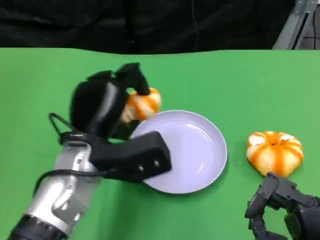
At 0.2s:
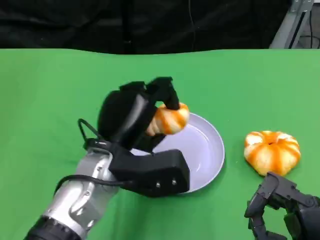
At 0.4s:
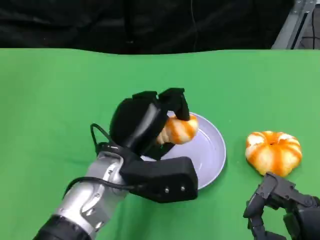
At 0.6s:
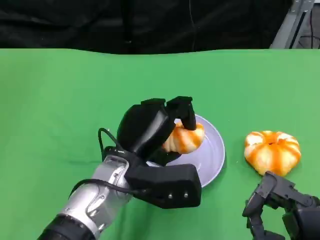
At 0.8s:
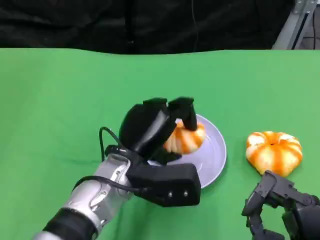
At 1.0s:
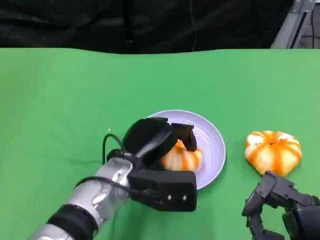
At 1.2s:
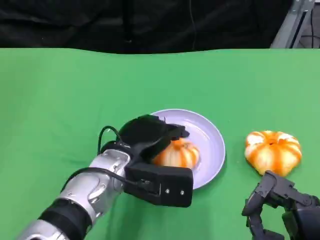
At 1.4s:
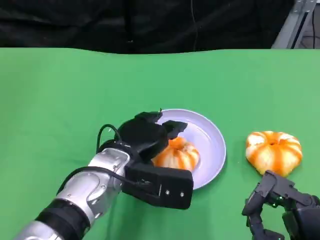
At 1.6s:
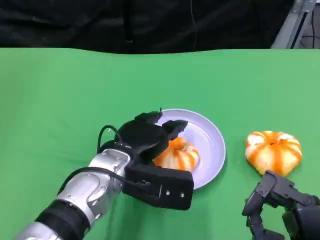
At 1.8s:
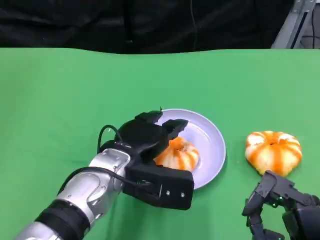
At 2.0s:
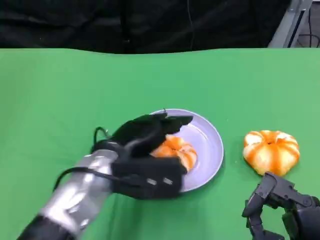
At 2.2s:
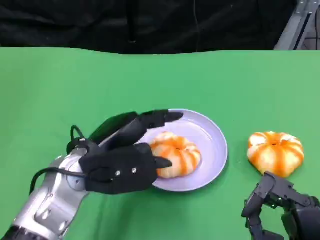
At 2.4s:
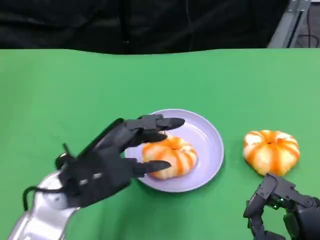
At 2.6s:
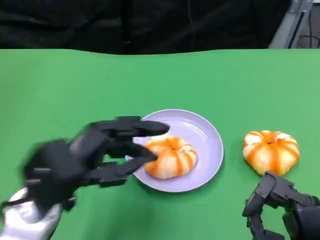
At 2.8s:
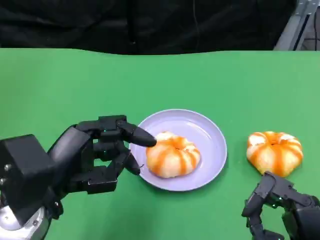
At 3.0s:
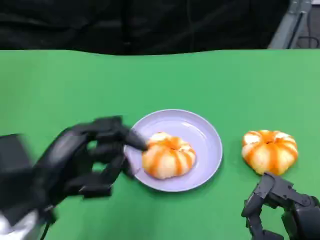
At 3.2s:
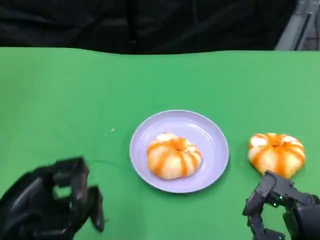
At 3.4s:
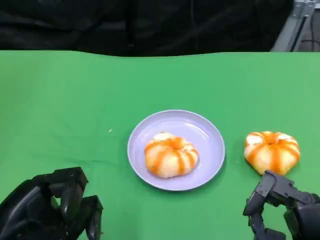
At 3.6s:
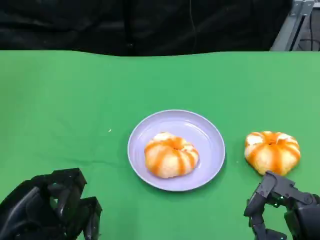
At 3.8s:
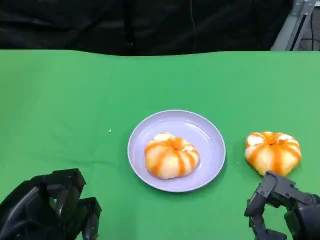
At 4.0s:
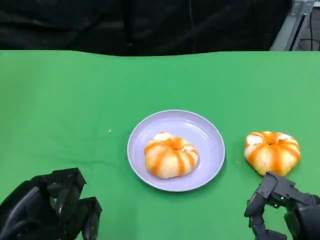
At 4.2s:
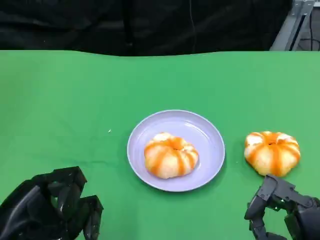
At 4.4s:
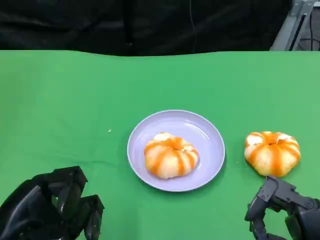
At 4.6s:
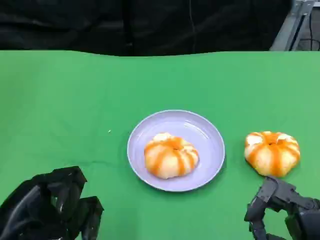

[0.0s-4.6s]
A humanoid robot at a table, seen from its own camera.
Task of the whole recording: Grasp the bread from the table and place it into the plate.
1.6s to 3.0s: The left hand goes roughly 15 cm to the left and backward.
3.0s to 4.6s: The left hand moves approximately 5 cm.

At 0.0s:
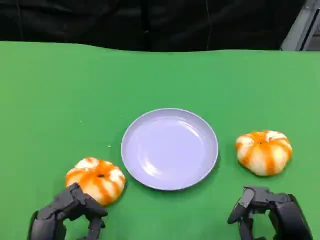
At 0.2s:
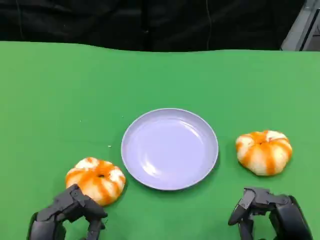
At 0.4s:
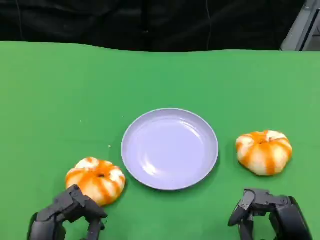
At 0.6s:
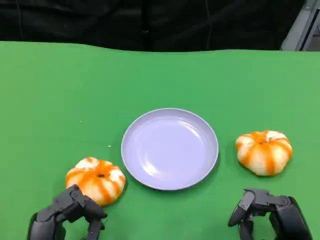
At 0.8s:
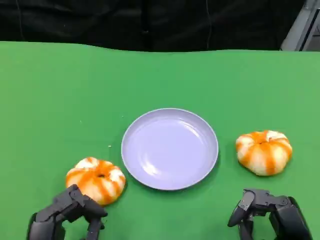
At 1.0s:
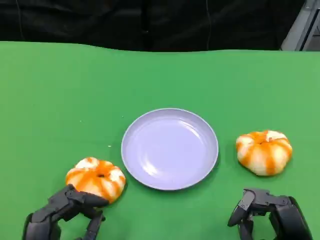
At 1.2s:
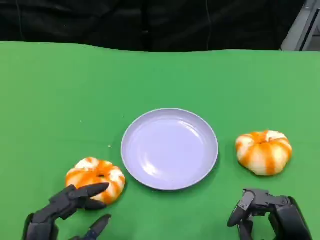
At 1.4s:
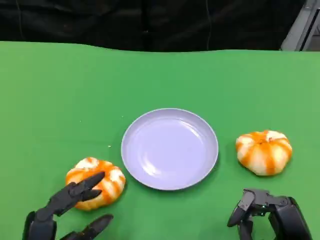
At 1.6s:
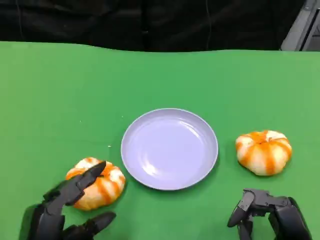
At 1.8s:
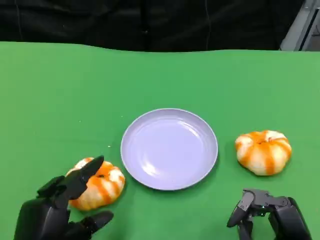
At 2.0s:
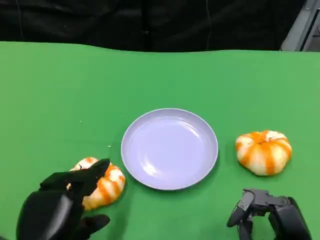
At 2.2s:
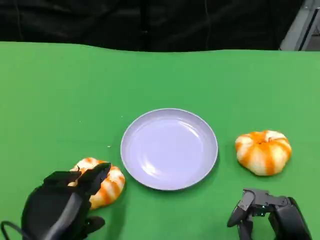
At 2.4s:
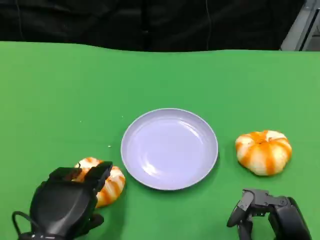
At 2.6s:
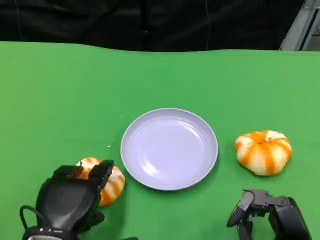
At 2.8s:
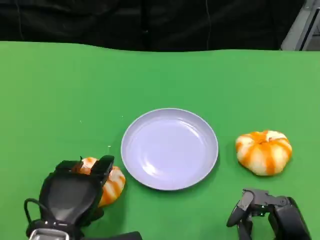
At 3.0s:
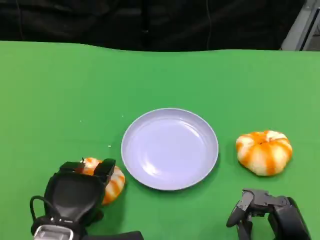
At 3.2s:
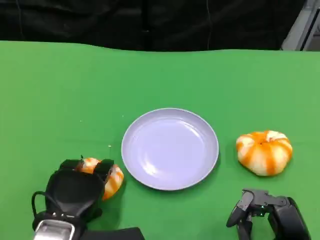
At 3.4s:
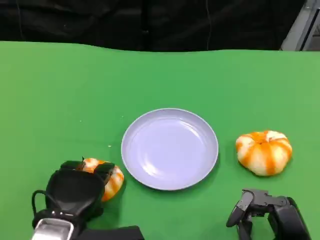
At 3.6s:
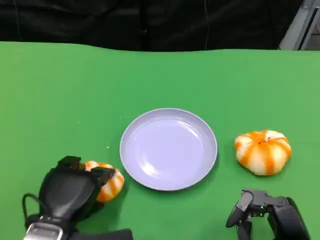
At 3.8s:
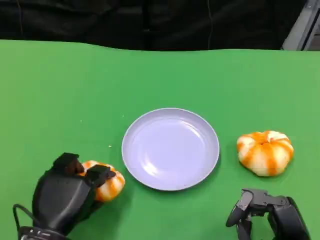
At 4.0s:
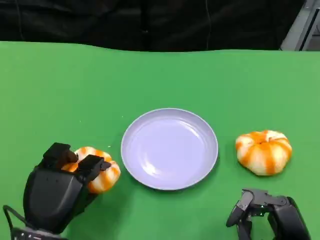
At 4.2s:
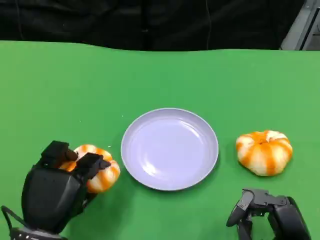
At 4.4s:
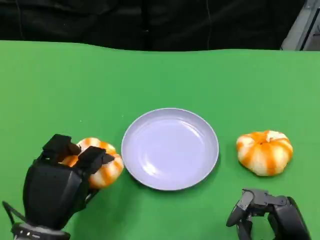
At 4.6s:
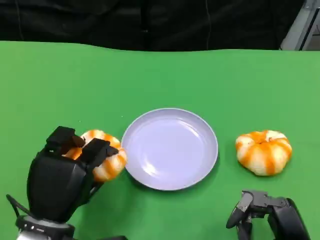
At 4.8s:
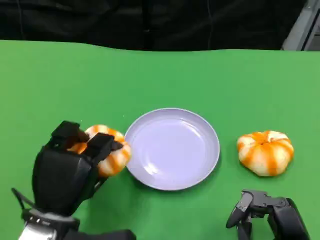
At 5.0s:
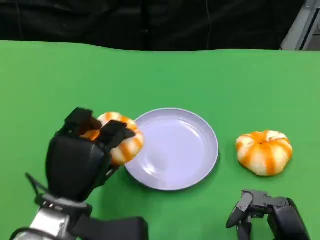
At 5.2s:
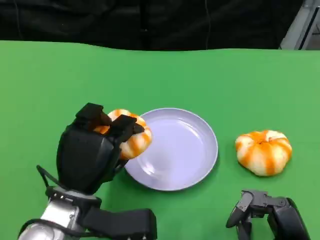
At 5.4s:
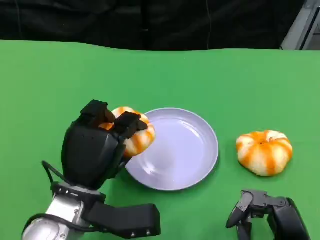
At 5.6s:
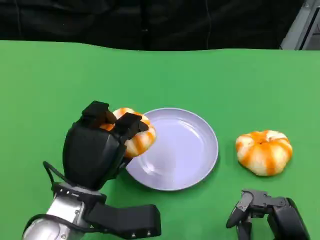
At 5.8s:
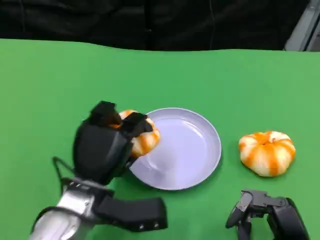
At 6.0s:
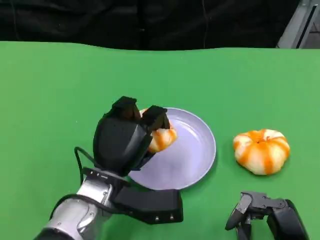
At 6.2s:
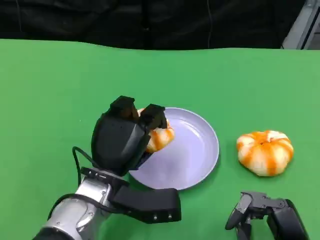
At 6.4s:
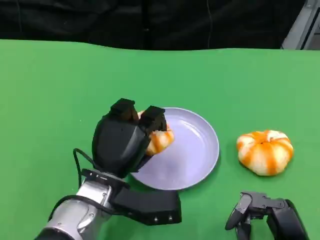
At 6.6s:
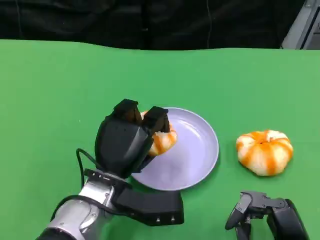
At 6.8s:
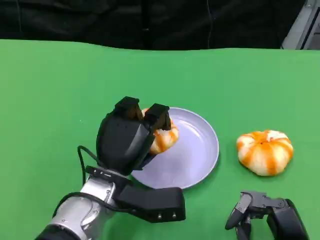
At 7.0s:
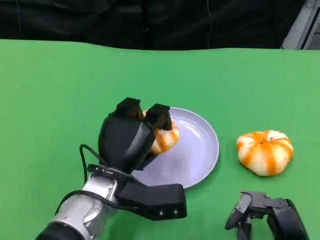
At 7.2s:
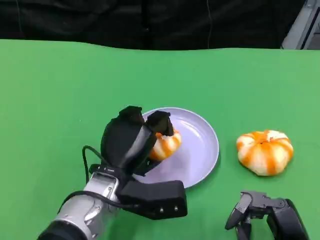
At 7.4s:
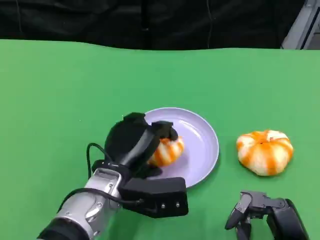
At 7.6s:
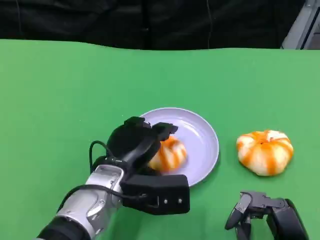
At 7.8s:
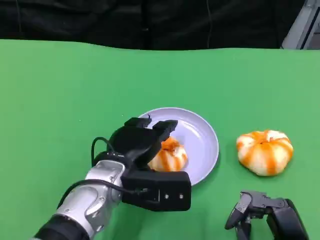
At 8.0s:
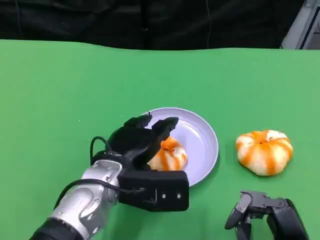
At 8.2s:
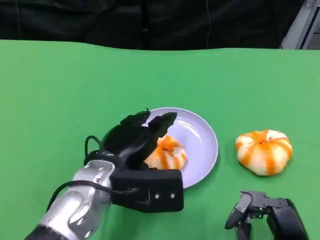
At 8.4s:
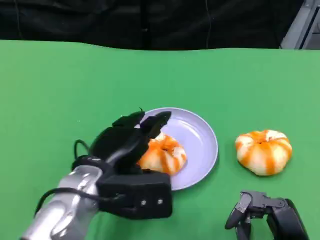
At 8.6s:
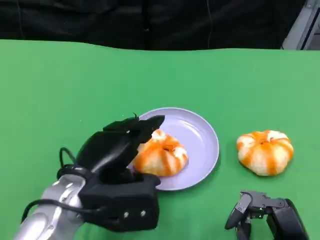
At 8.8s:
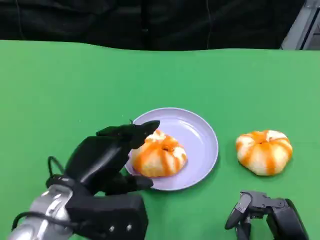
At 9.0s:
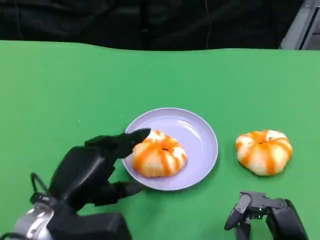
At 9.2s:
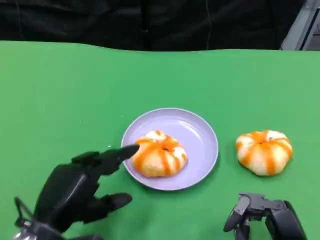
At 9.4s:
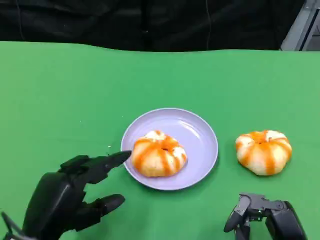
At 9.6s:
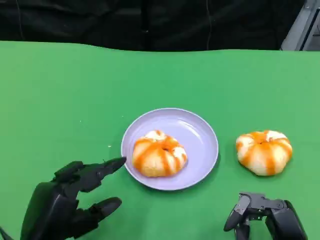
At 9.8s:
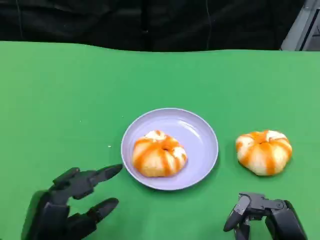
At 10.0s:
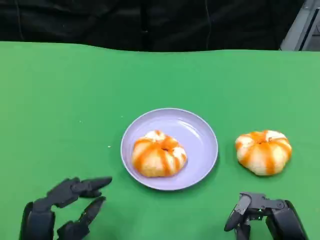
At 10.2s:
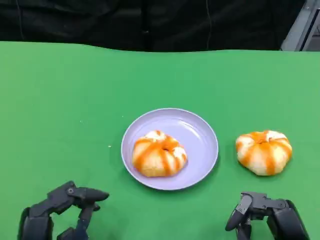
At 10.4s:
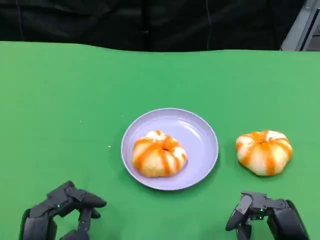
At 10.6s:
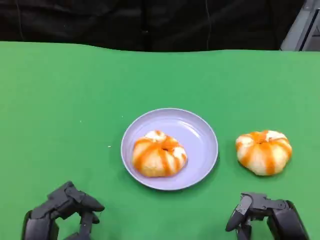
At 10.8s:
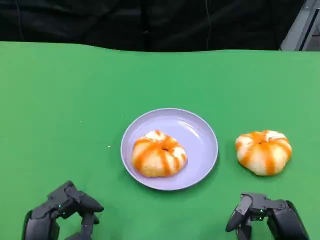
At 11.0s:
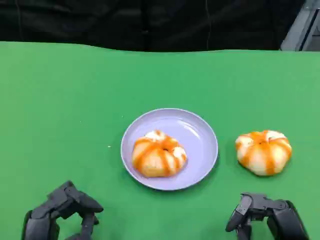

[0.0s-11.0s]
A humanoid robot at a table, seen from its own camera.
Task of the whole recording: Grasp the bread from the table and place it into the plate.
1.6s to 3.2s: The left hand travels forward by about 5 cm.
4.8s to 6.2s: The left hand heads to the right and forward, covering some 10 cm.
7.8s to 9.4s: The left hand travels backward and to the left by some 15 cm.
9.4s to 11.0s: The left hand moves approximately 5 cm.

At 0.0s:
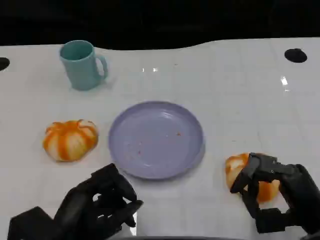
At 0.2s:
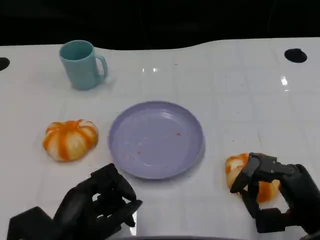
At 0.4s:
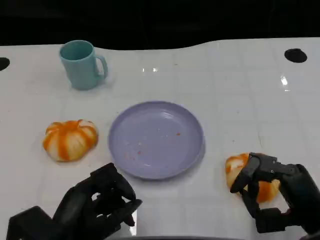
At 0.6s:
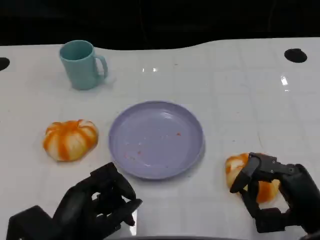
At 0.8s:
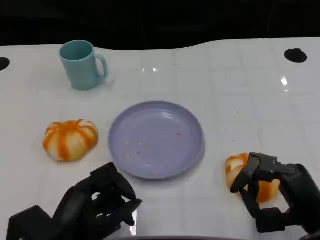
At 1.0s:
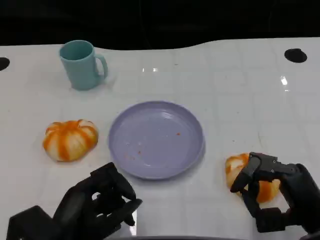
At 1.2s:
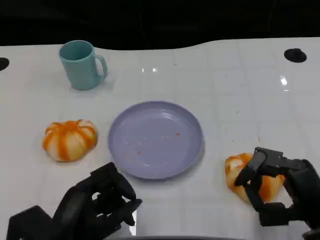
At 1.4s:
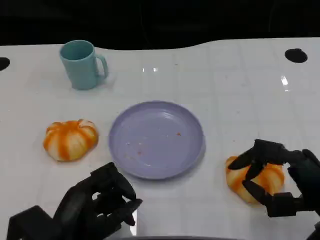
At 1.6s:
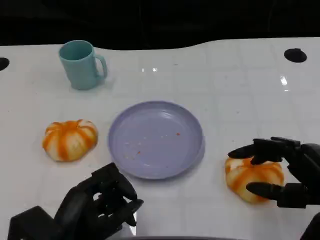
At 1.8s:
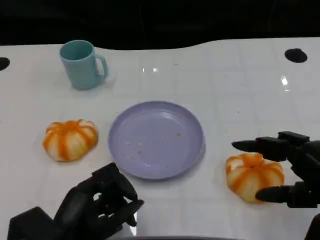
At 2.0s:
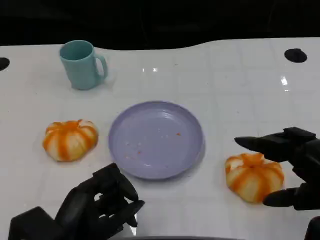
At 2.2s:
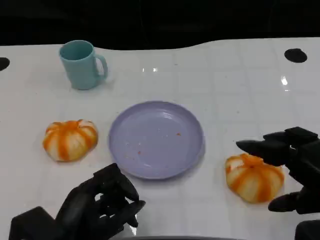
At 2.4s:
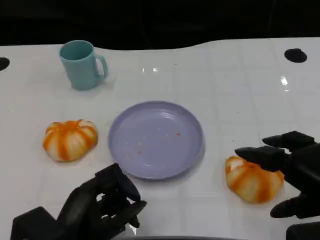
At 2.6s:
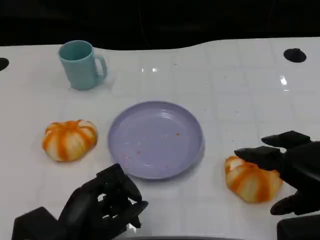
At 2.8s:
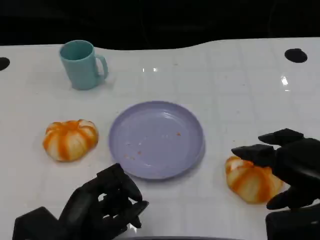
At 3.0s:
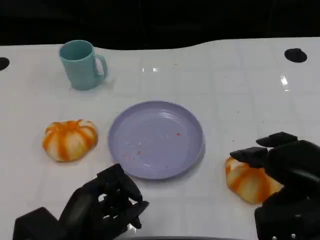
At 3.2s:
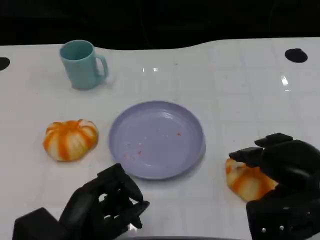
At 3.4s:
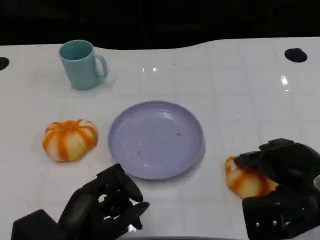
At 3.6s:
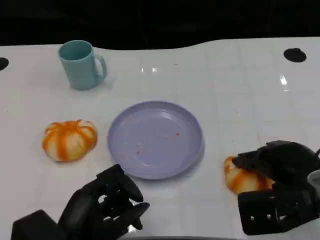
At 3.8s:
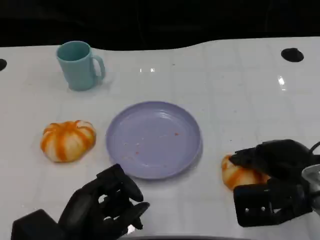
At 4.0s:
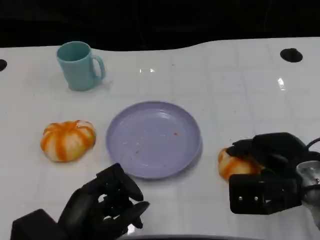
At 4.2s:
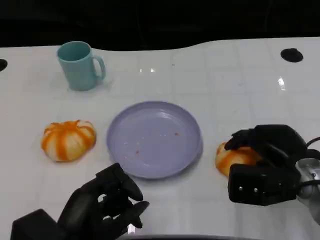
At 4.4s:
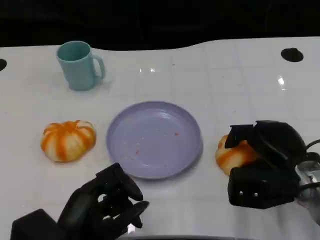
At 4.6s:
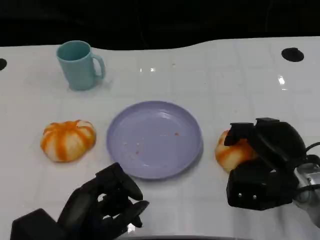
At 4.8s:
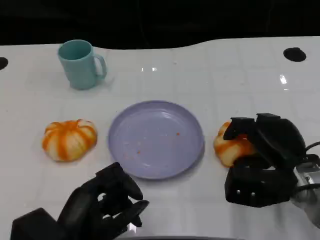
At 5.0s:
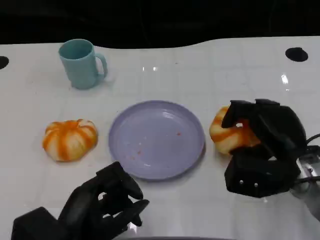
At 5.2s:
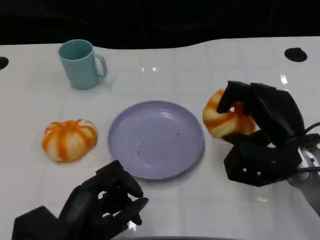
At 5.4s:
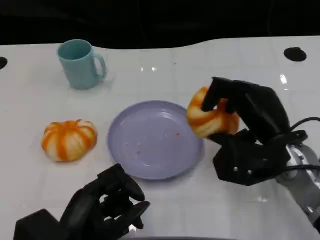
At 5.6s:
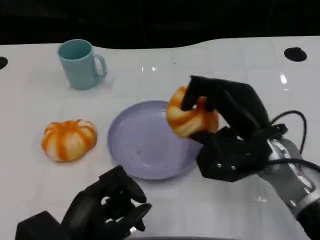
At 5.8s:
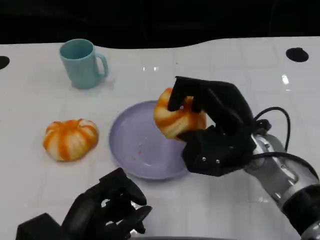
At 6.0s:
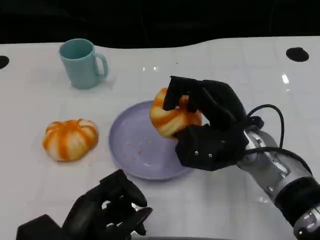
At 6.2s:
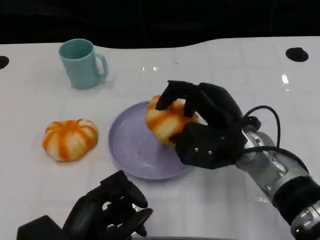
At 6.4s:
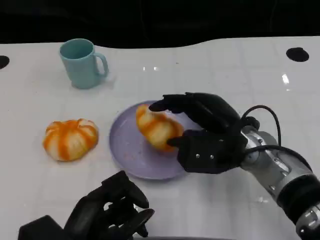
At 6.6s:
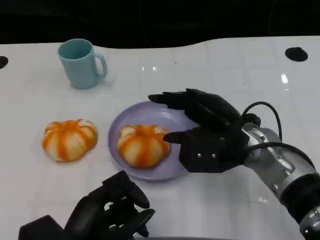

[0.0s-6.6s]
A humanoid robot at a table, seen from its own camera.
Task of the whole recording: Grasp the bread from the table and place it into the plate.
0.0s to 1.6s: The right hand heads upward, covering about 5 cm.
3.2s to 5.0s: The right hand shifts some 5 cm forward.
5.0s to 6.6s: The right hand travels to the left by approximately 5 cm.
